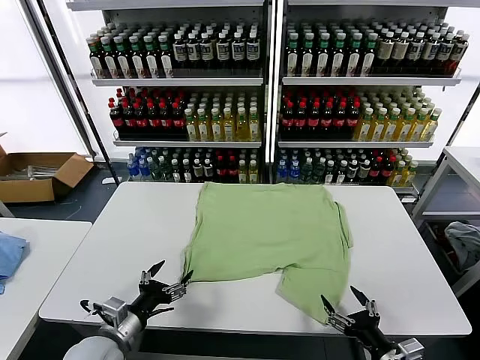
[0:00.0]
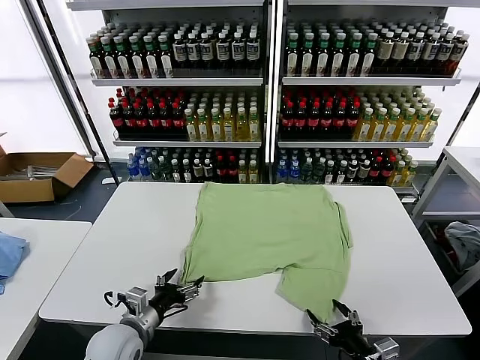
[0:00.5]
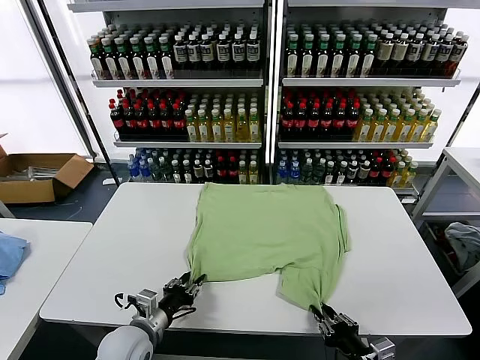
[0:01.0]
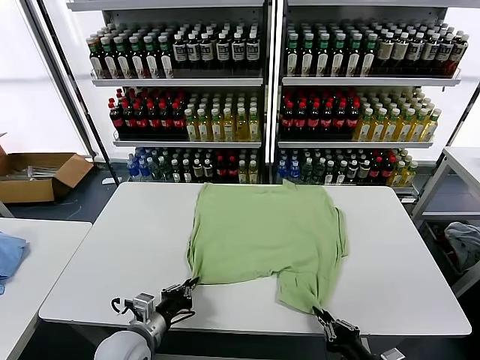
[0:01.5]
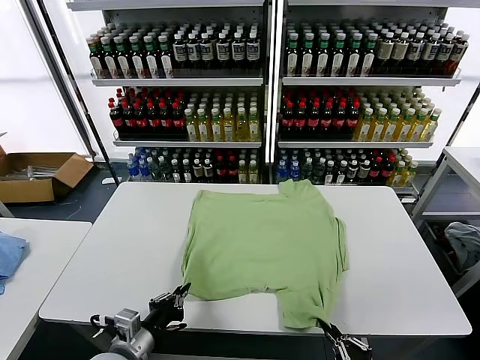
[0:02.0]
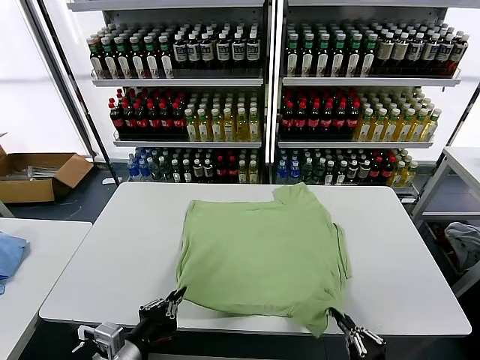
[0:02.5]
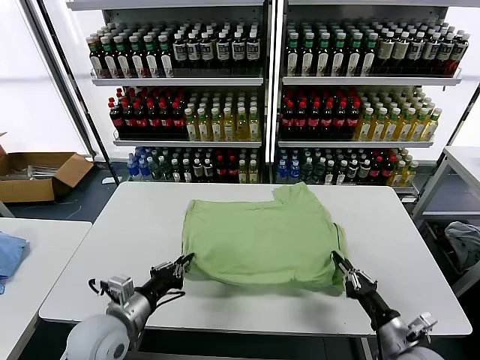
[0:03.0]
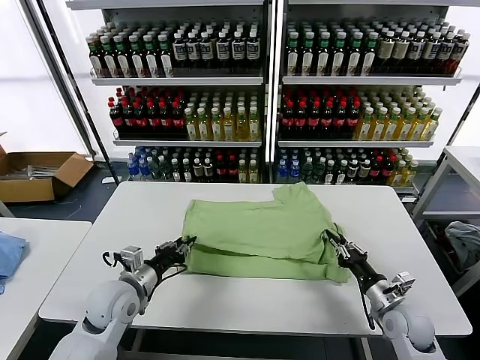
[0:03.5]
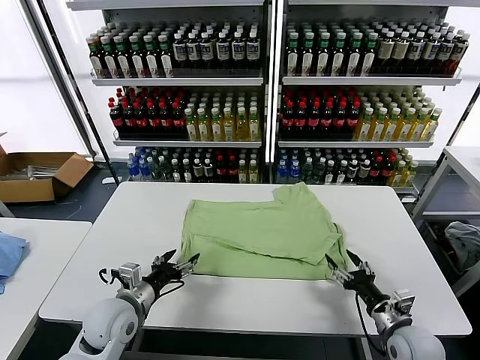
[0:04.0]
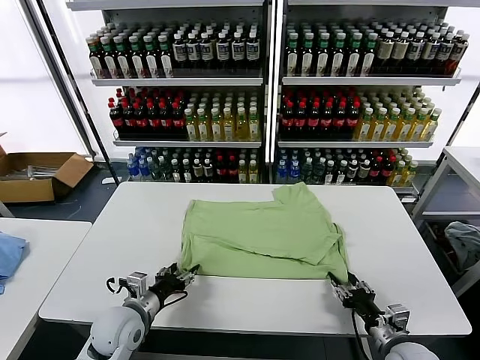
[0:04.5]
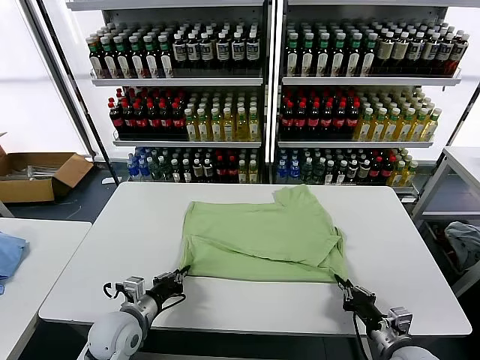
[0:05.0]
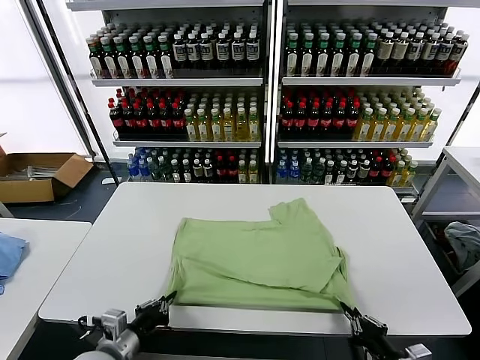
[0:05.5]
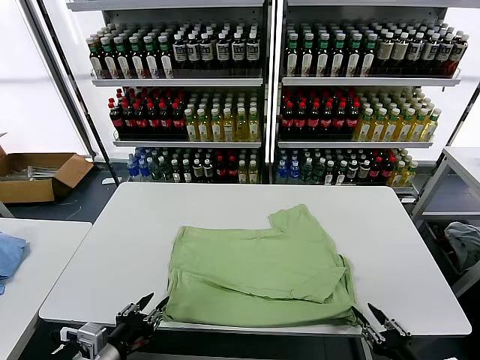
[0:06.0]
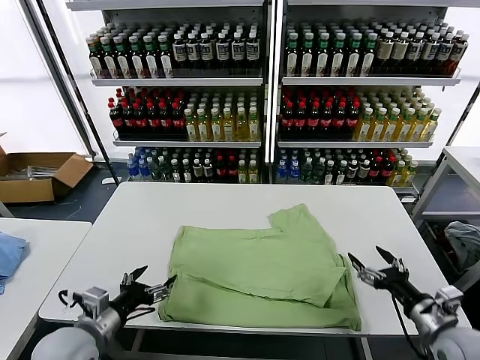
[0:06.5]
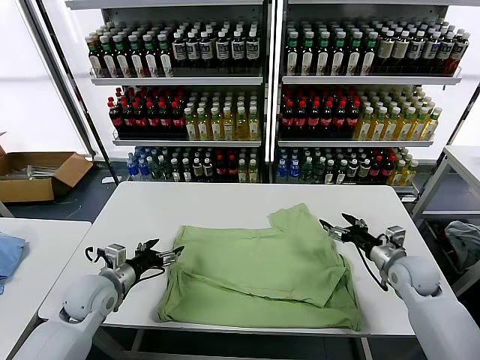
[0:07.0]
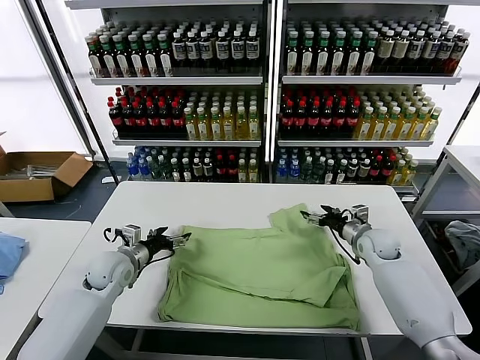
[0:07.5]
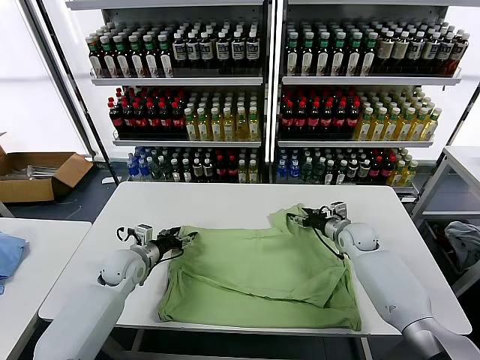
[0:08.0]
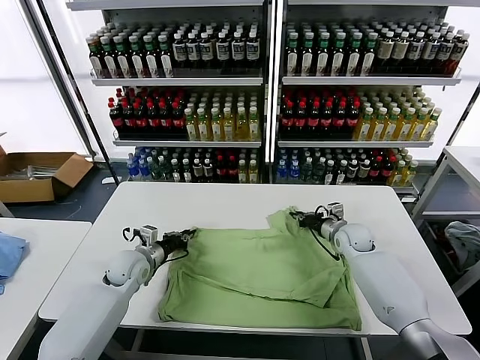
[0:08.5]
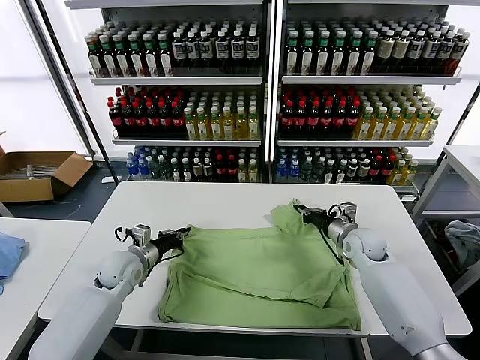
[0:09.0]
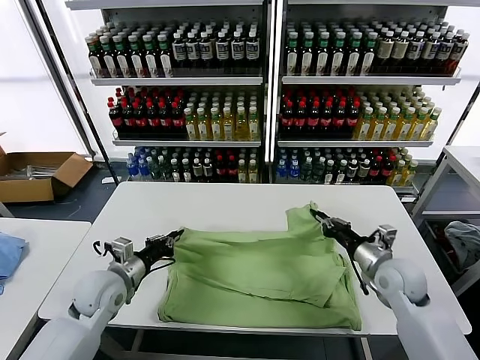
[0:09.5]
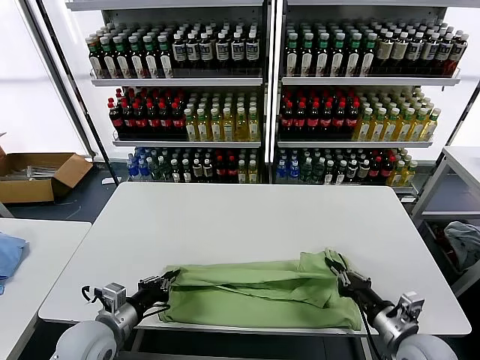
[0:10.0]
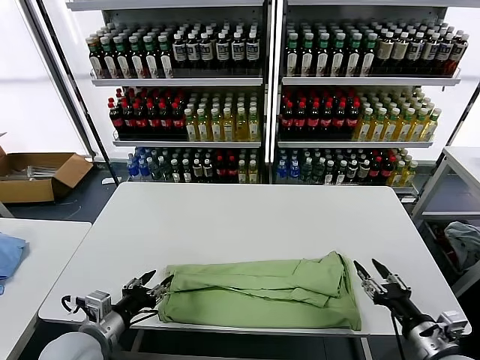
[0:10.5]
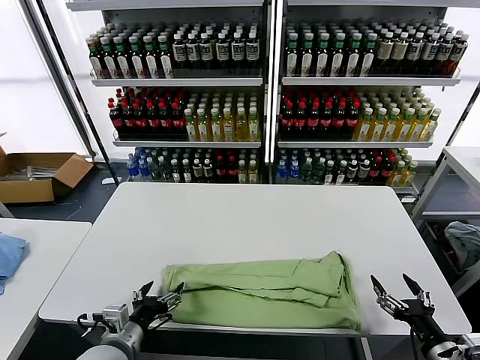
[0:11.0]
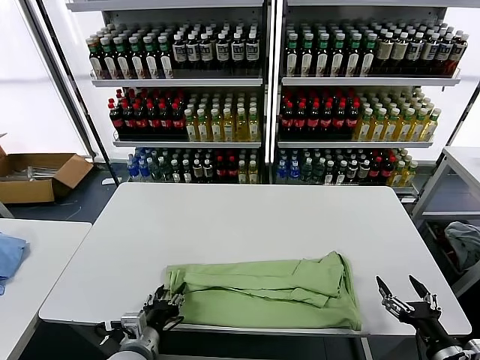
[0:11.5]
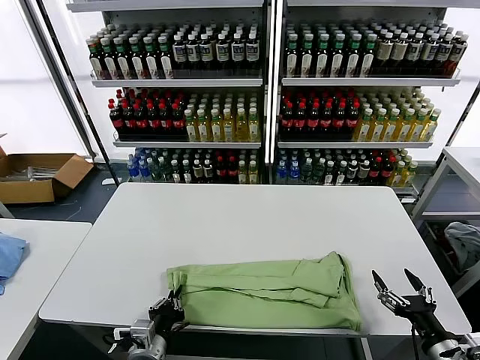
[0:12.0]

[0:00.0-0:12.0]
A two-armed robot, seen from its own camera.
Task of the whole recording: fold and organize the clothes.
Step, 0:00.0 to 0:01.0: use both grippers simultaneously to clamp the lower edge of the clothing fabric.
Step, 0:01.5 to 0:03.5: use both grippers to drag the lower edge of the fabric forward and fold it over the upper edge.
Step, 0:04.0 to 0:06.0: Drag the clothes downward with both gripper.
Step, 0:06.5 to 0:08.5: use both grippers simultaneously to clamp the upper edge of the clothing fabric.
Step, 0:09.0 to 0:10.0: use both grippers to drag the upper edge of the fabric backward and fold it over the lower edge.
Step, 0:10.5 to 0:12.0: use the left gripper to clamp the left edge of the fabric.
0:02.0 to 0:04.0: Both grippers travel together forward, some 15 cm. The right gripper opens. Meanwhile the left gripper opens its fingers.
0:04.0 to 0:06.0: The left gripper shifts some 15 cm backward, and closes up. Meanwhile the right gripper is displaced backward and upward by approximately 15 cm, and closes and opens again.
0:06.0 to 0:08.0: Both grippers travel together forward, approximately 35 cm.
0:08.0 to 0:10.0: The left gripper shifts roughly 20 cm backward, and closes its fingers. Meanwhile the right gripper is displaced backward by roughly 30 cm, and closes.
0:10.0 to 0:12.0: The left gripper moves to the right, downward and backward, approximately 10 cm, and opens, then closes once more, while the right gripper moves backward and to the right, roughly 10 cm, and opens.

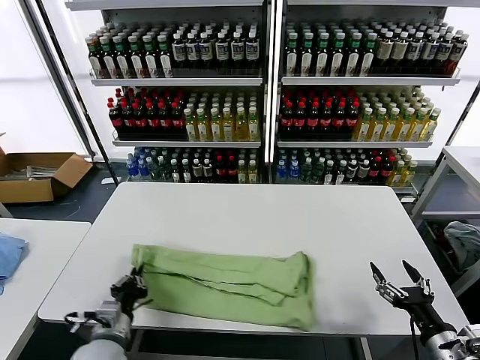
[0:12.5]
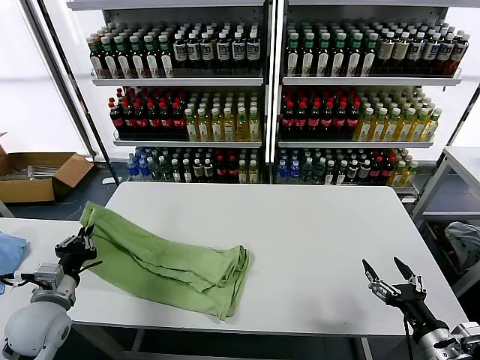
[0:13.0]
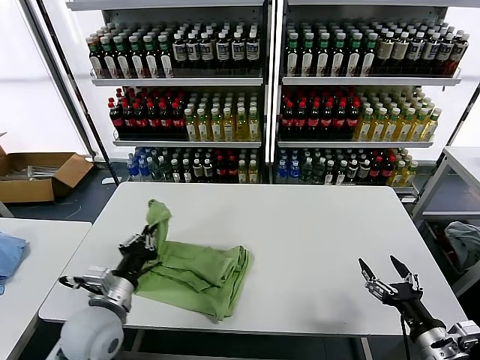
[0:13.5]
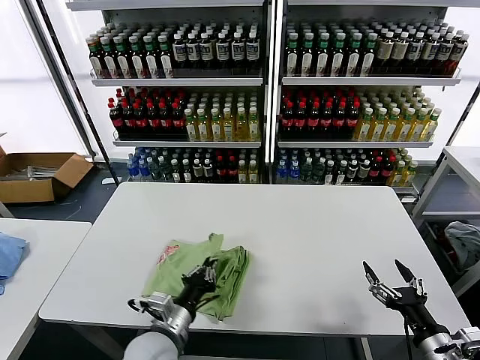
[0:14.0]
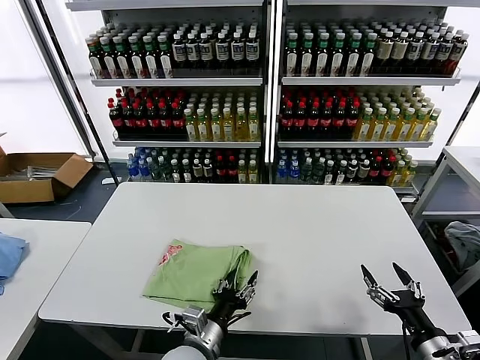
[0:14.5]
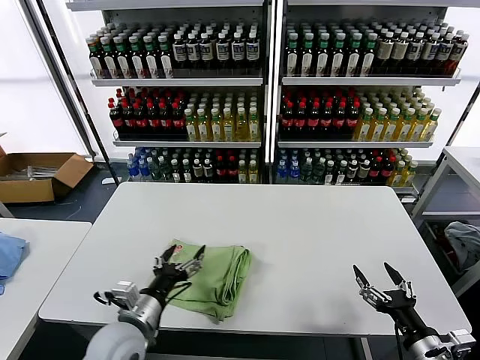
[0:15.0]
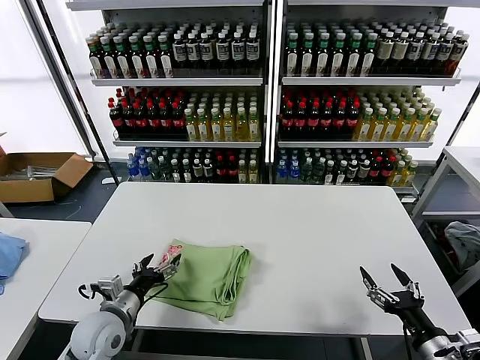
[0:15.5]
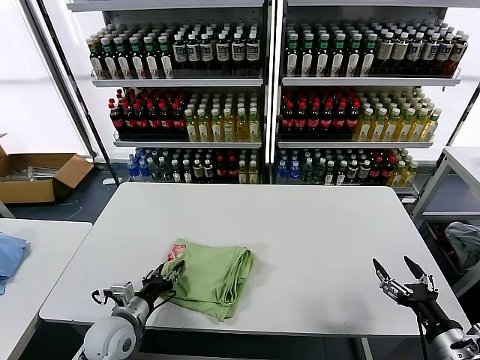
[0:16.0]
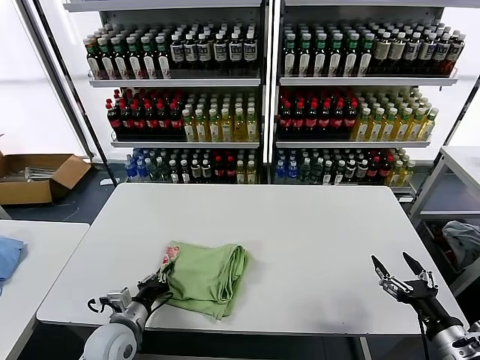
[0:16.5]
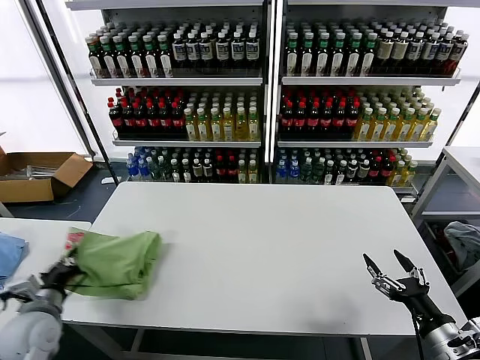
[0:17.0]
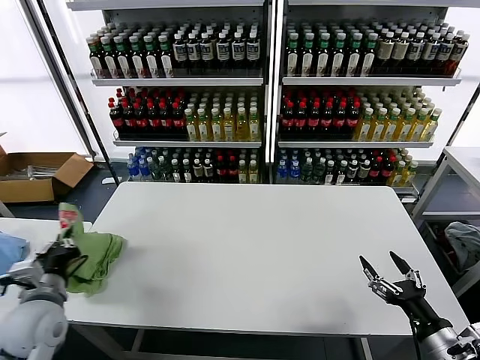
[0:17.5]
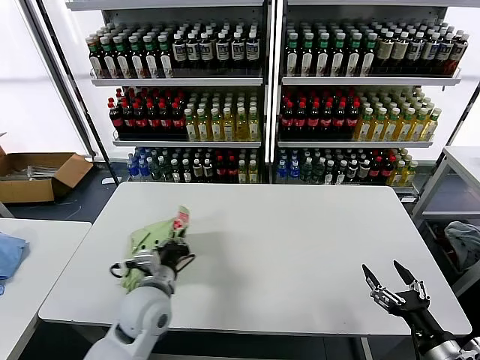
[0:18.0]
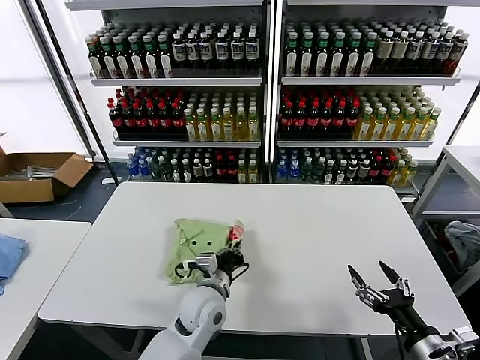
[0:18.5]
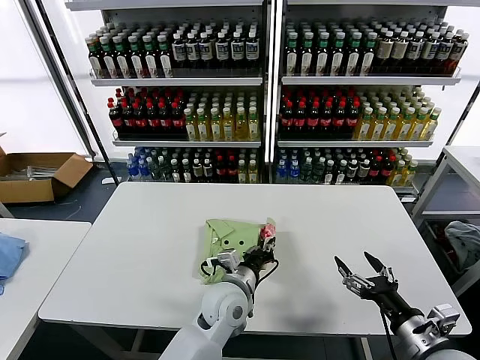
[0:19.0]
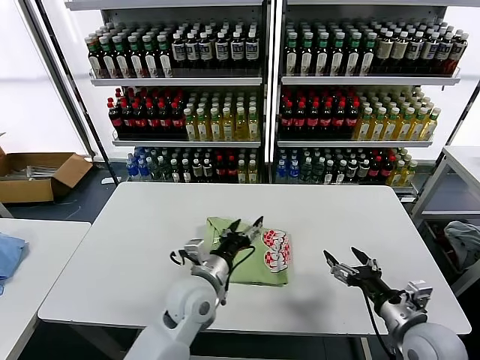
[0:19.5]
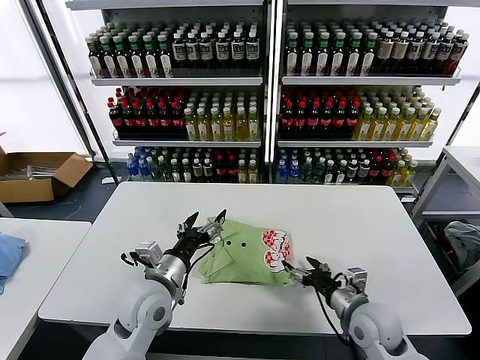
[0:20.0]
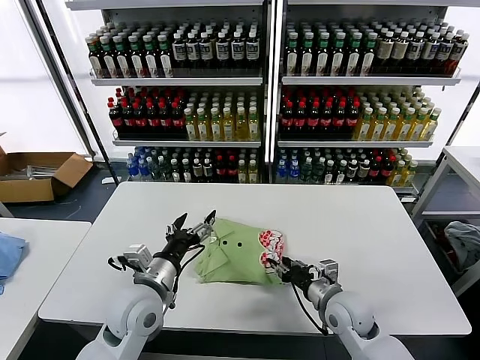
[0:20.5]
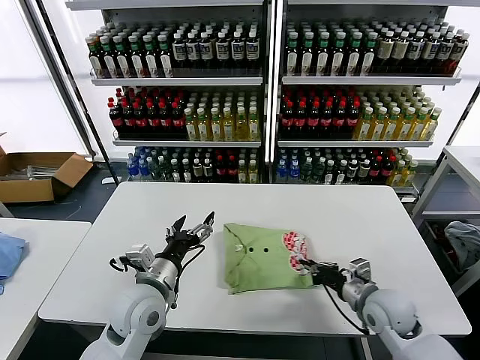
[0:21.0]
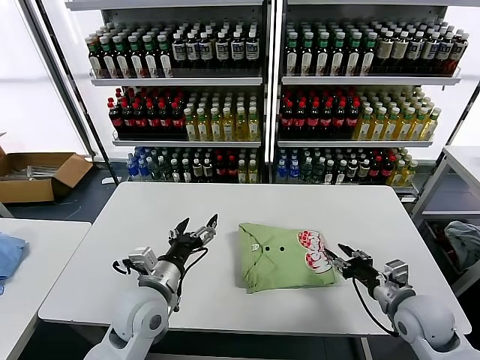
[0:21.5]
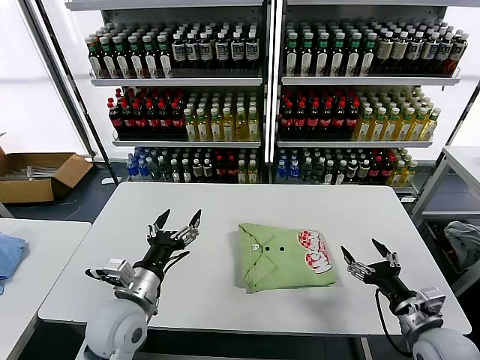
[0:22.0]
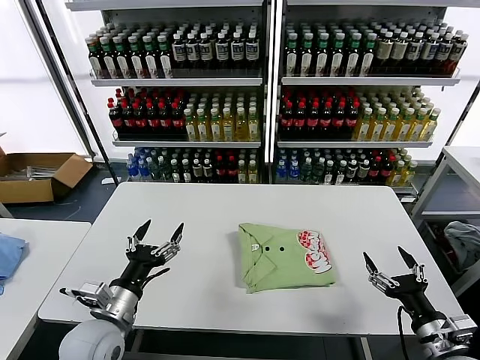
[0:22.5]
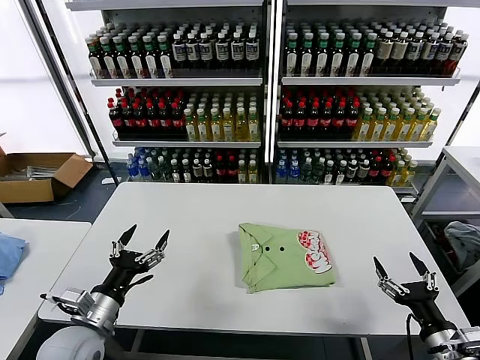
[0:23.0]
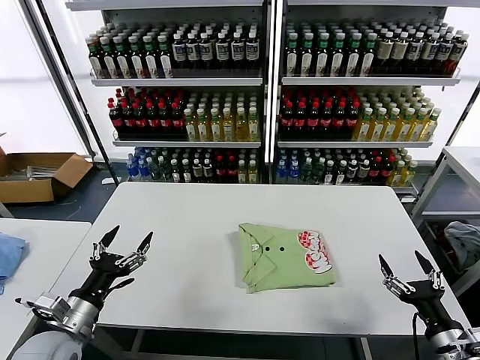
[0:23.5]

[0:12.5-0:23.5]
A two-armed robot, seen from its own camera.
Task of the whole recording: fold and organize the clothes.
Step, 0:12.5 to 0:14.5: use the left gripper to drag the left edge of the fabric to the left and folds it over the right edge.
Step, 0:15.0 to 0:19.0: Flip the folded clothes over with left gripper.
Step, 0:19.5 to 0:21.5: Drag the clothes to the center of the table.
0:12.5 to 0:14.5: The left gripper shifts approximately 15 cm to the right, and opens its fingers.
0:14.5 to 0:16.0: The left gripper heads to the left, covering approximately 15 cm, and opens, then closes again.
0:16.0 to 0:18.0: The left gripper heads upward and to the right, covering some 10 cm, and closes its fingers.
0:18.0 to 0:20.0: The right gripper shifts about 20 cm forward and to the left. Meanwhile the left gripper reaches approximately 15 cm to the right, then returns, and opens its fingers.
0:20.0 to 0:21.5: The right gripper goes roughly 10 cm to the right, and closes its fingers.
0:21.5 to 0:23.5: The right gripper goes about 15 cm backward, and opens, while the left gripper moves to the left and backward, roughly 15 cm.
